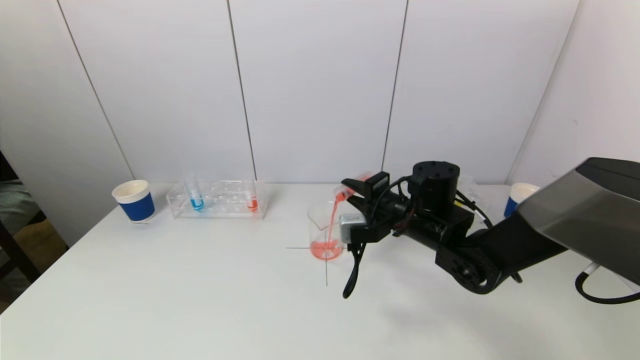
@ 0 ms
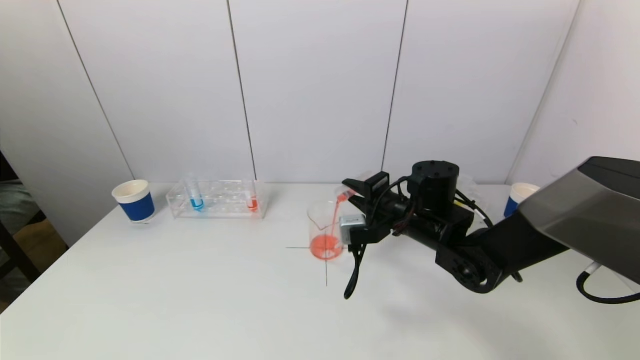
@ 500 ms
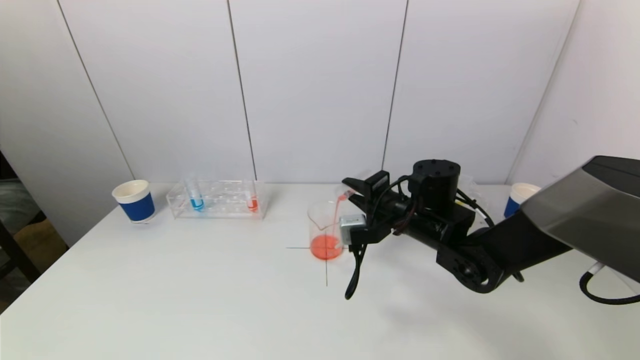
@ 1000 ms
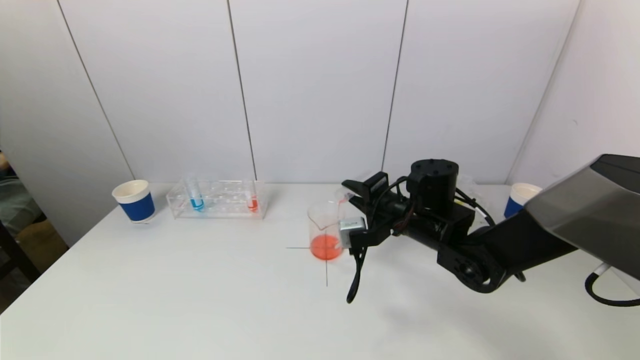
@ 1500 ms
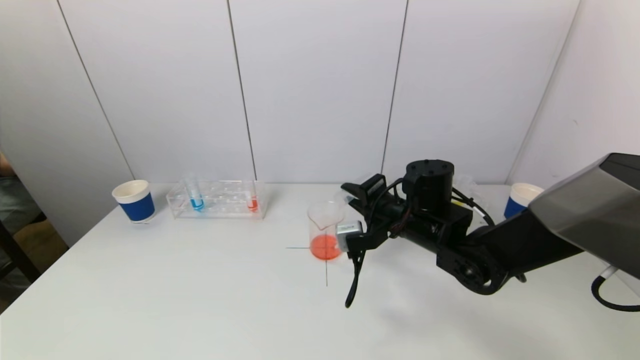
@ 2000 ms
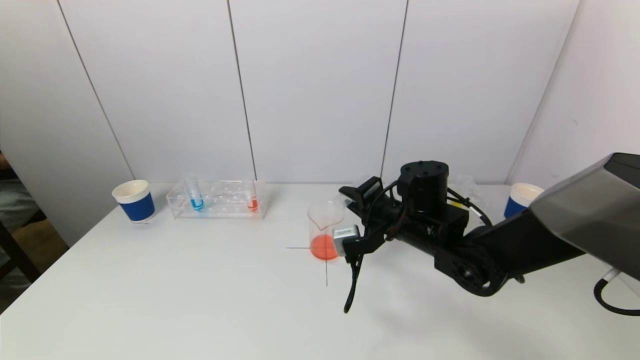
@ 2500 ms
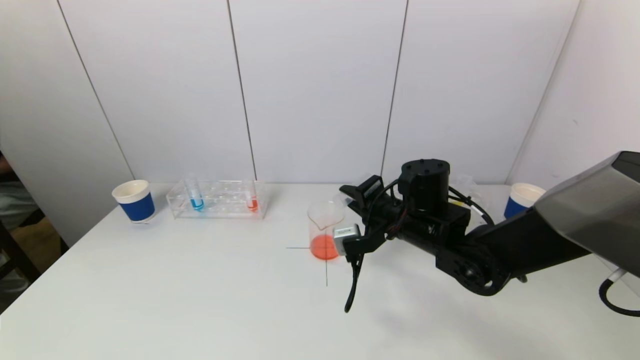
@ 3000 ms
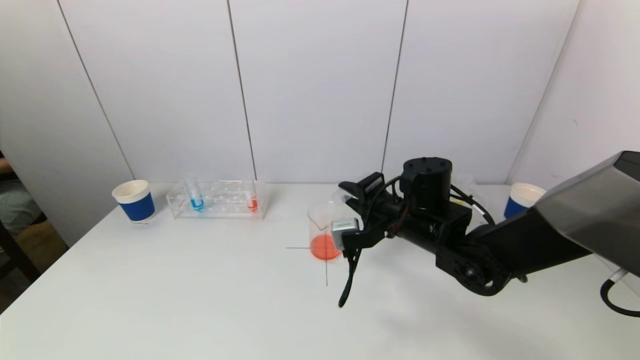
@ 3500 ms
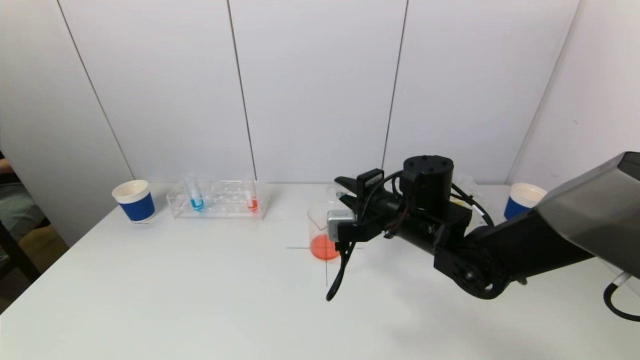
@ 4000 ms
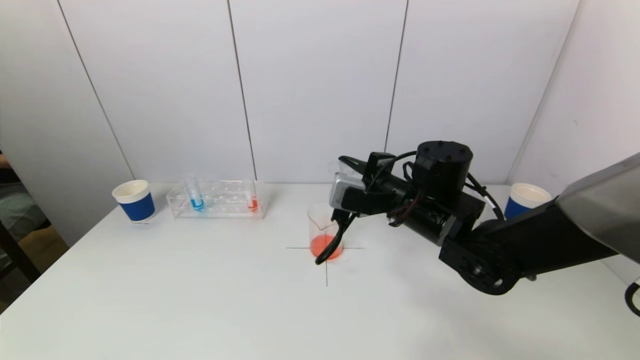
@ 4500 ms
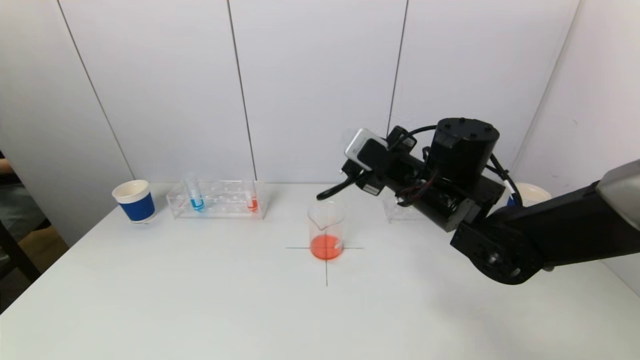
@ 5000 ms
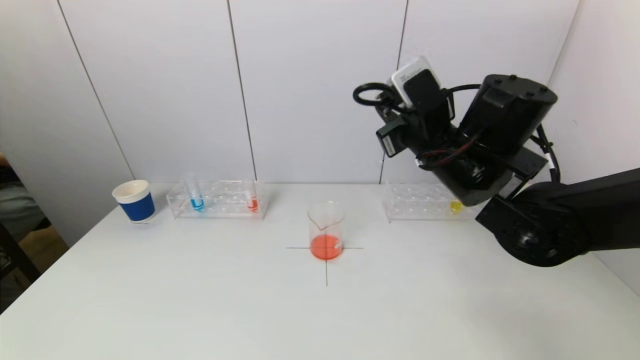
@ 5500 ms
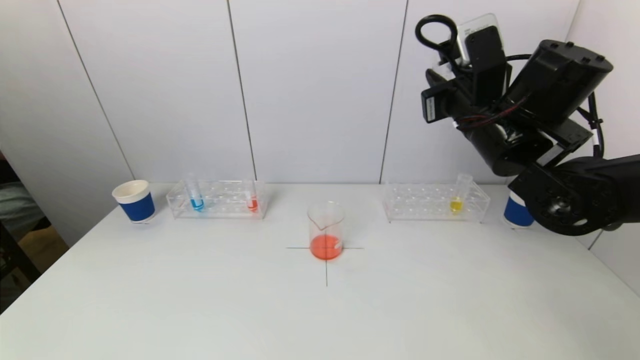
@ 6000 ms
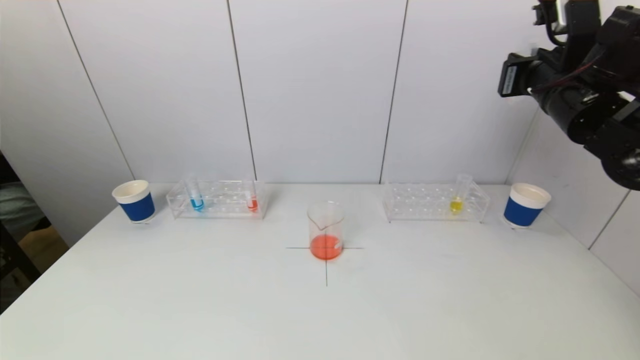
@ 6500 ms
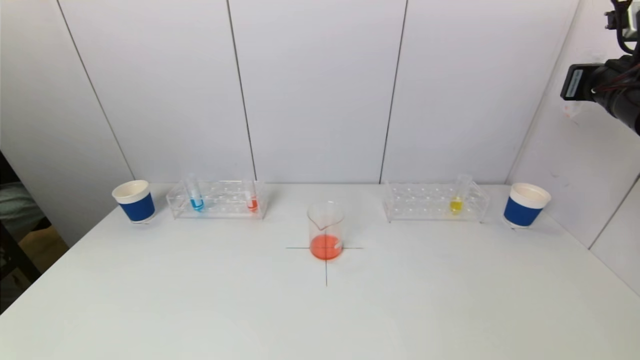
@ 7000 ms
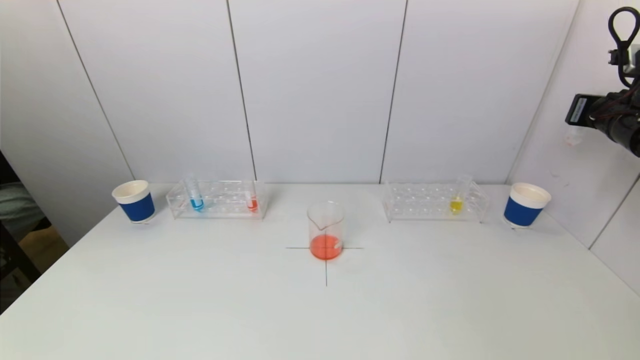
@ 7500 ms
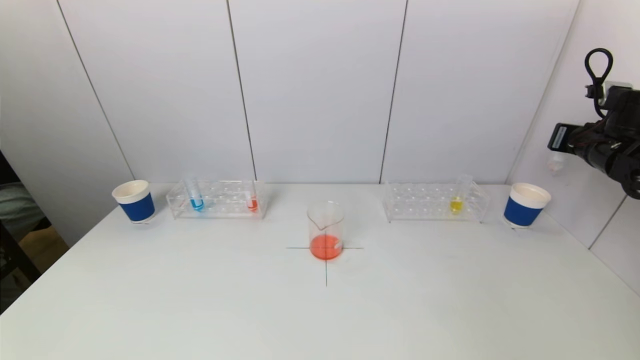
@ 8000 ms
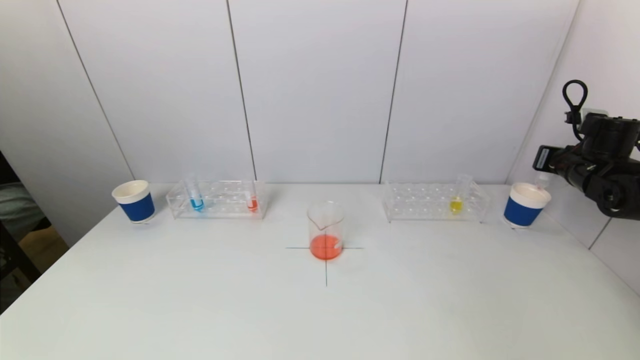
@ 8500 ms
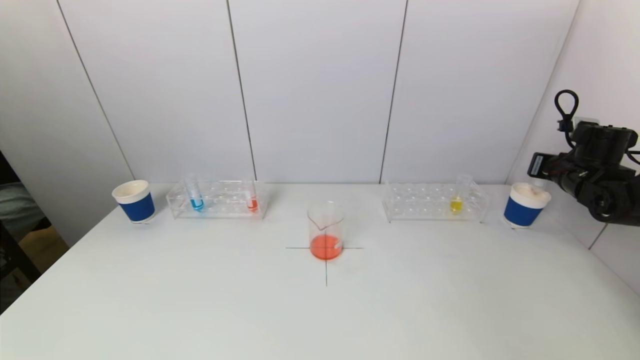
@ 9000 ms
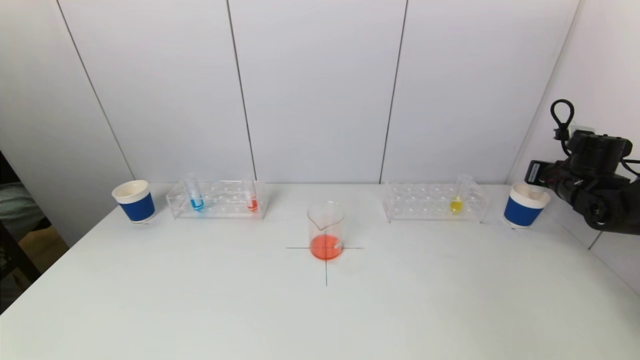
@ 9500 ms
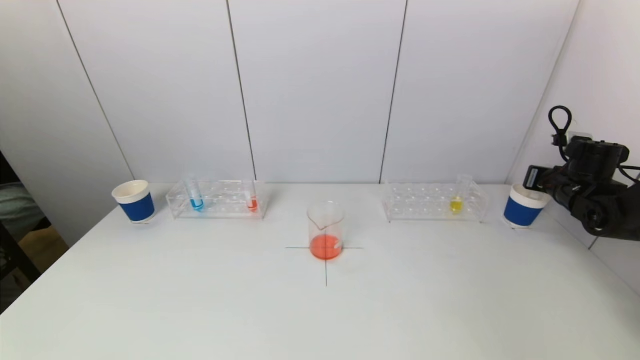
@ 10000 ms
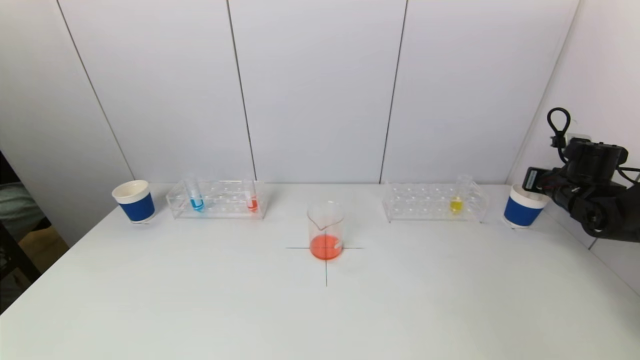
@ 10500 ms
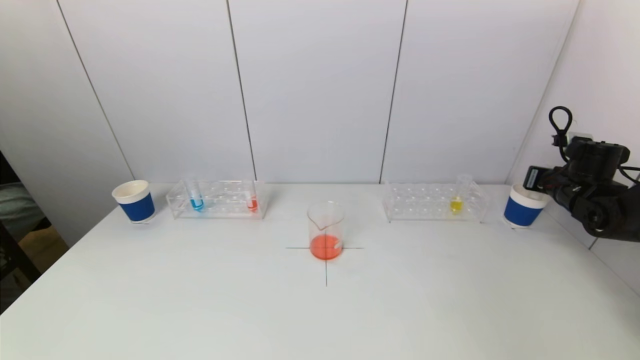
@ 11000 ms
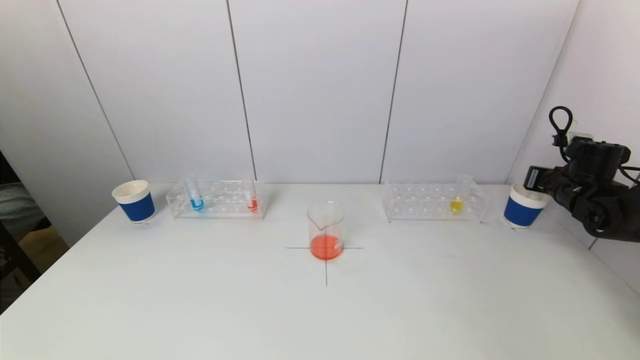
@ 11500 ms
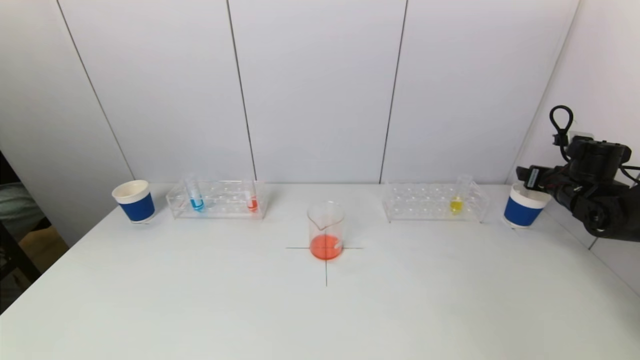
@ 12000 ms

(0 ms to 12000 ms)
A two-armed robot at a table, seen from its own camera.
Task of the whole recording: pick up a test tube with pigment on left test tube rack and a test tube with pigment on right test tube rack by grippers and pour them into the beaker.
Step, 0 ms - 3000 ms: Pour the red reagent into the graduated cylinder with the right gripper.
0 ms - 4000 ms: There are only small adjustments of the grippers.
4000 ms - 6000 ms: The right gripper heads upward and to the right, covering roughly 15 cm.
6000 ms - 8000 ms: The right gripper travels to the right by about 25 cm.
8000 ms - 10000 ms: The right gripper travels downward by some 10 cm.

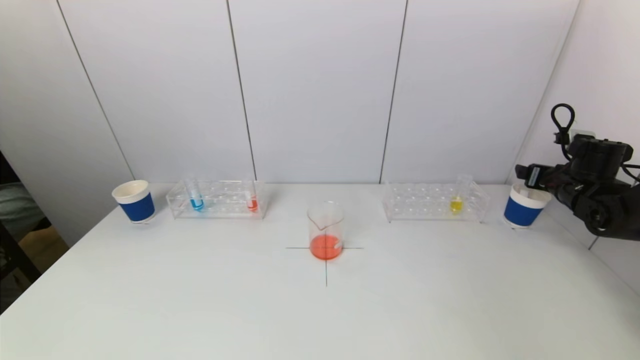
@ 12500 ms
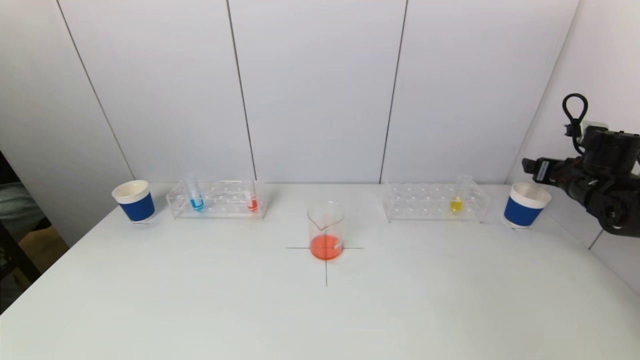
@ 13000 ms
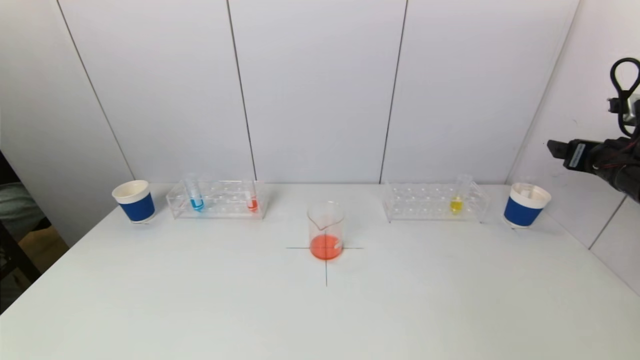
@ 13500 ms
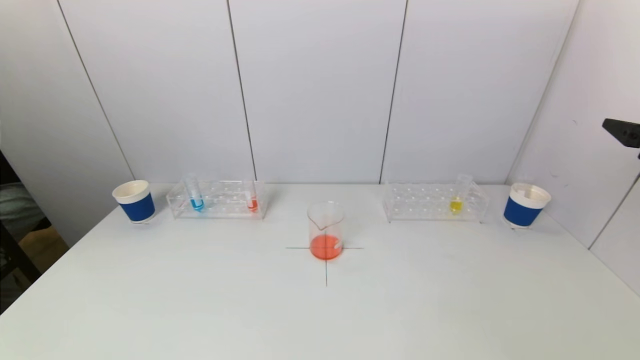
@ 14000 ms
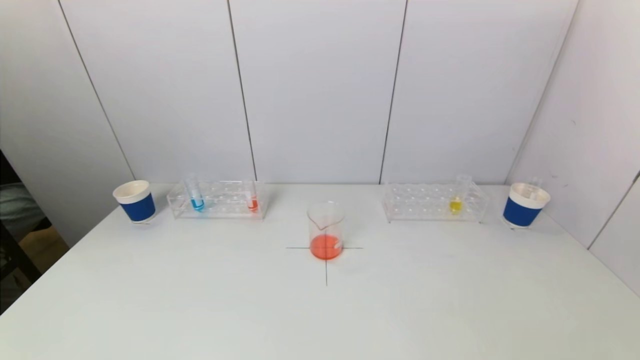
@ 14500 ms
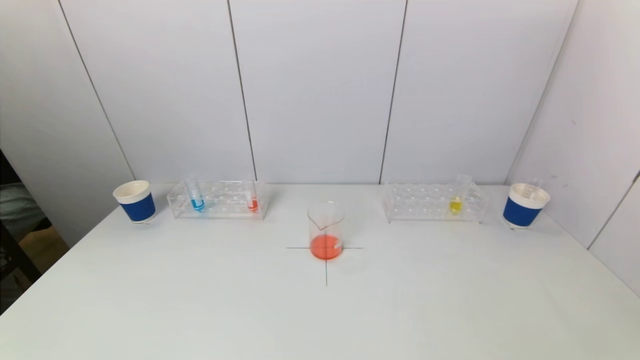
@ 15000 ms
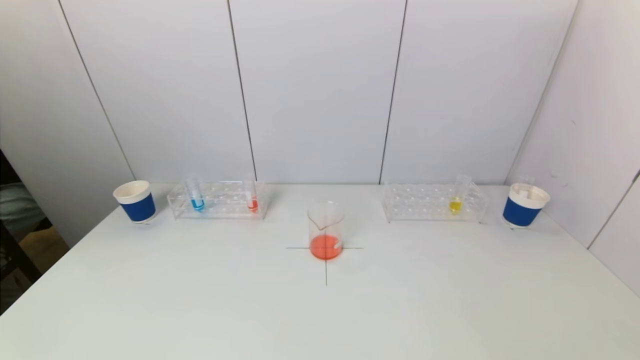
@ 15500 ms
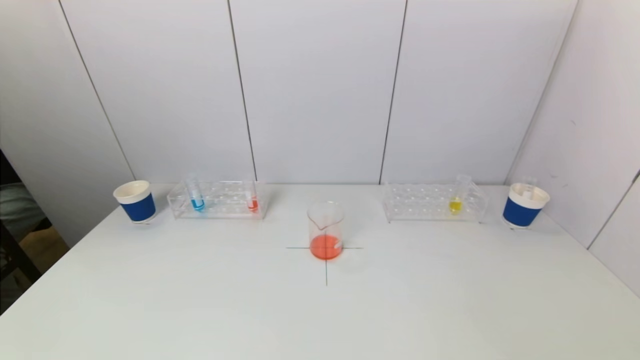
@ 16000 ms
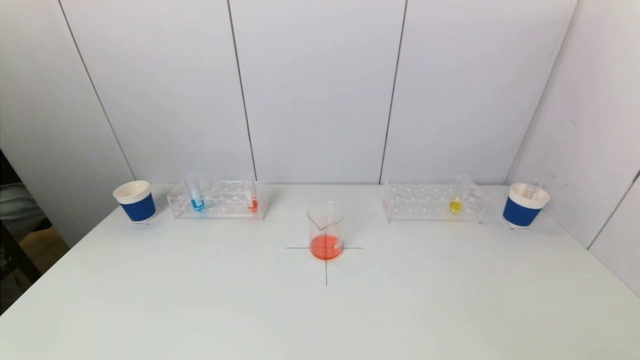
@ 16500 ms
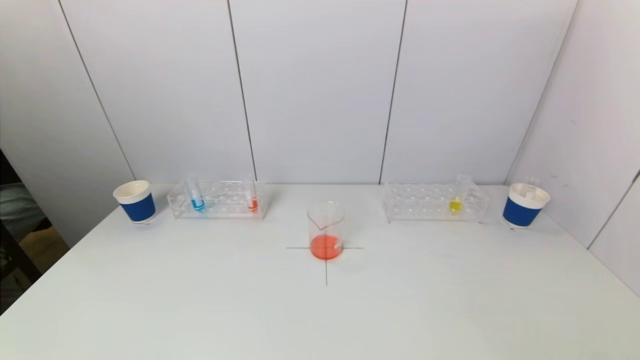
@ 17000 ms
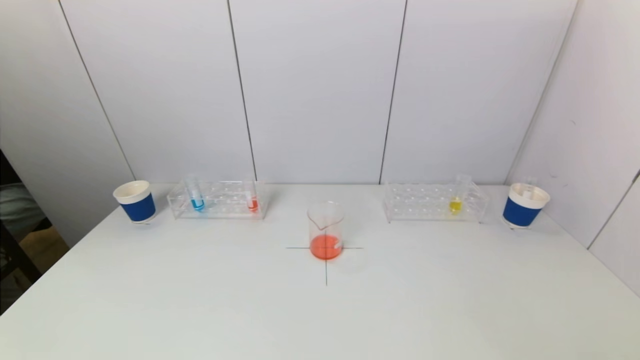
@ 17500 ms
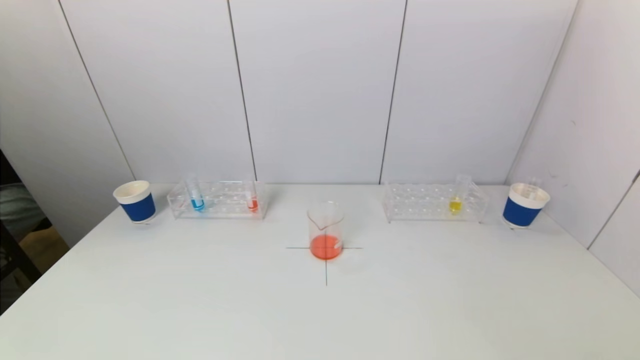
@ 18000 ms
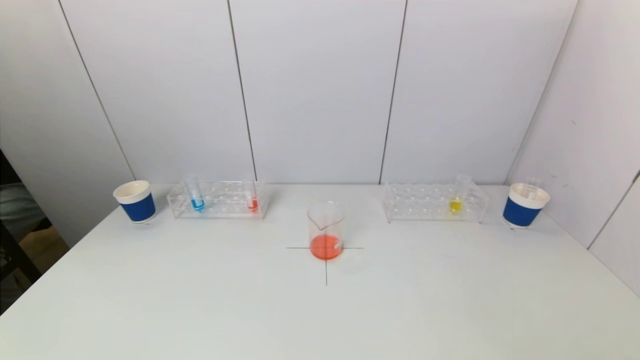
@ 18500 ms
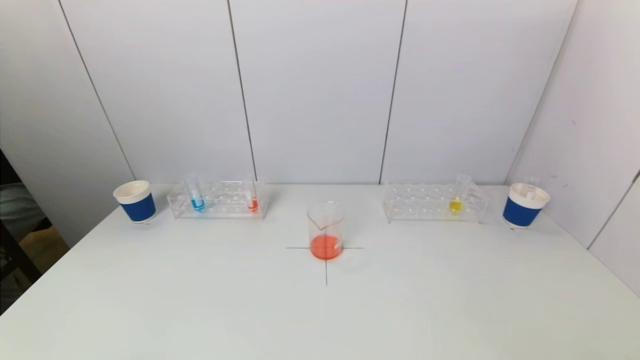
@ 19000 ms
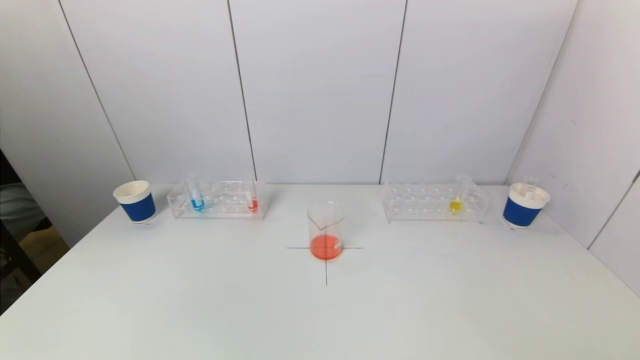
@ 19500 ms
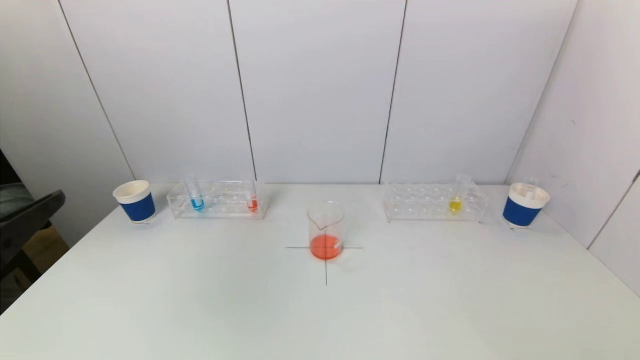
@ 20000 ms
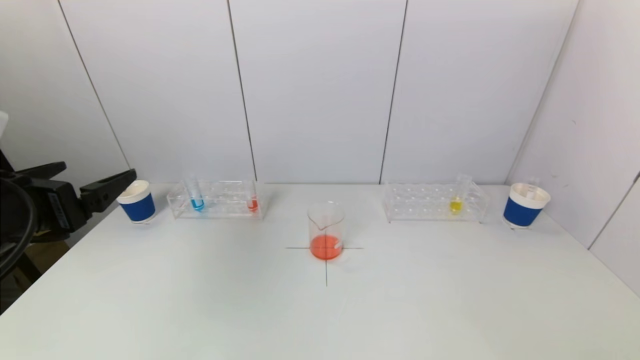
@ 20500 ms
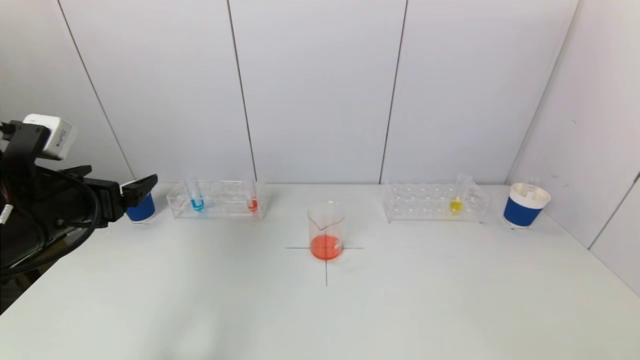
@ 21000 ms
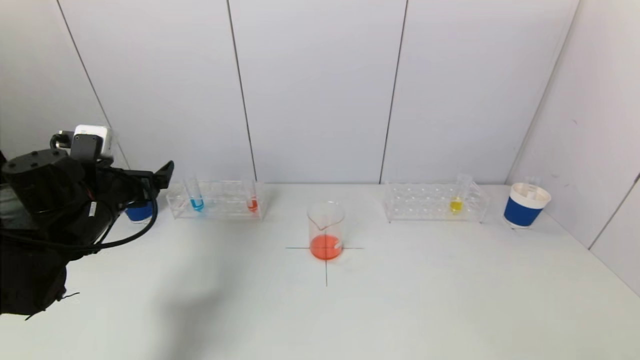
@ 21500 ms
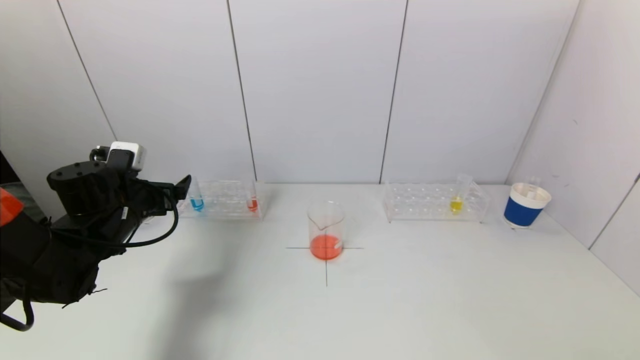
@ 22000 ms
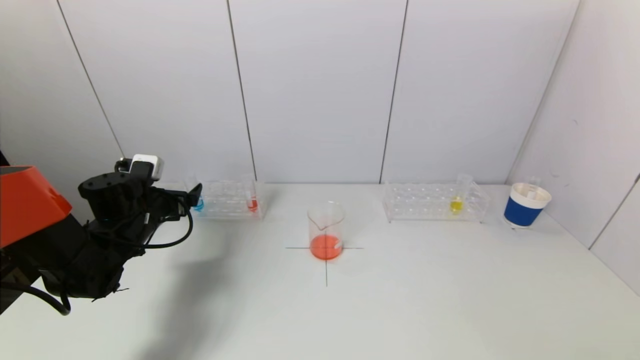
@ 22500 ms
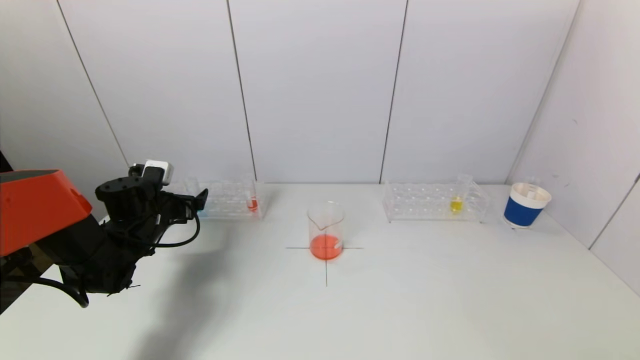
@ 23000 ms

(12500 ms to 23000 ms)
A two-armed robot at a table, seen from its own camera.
Task of the whole recording: pick up a test tube with pigment on left test tube rack and a test tube with pigment on right test tube rack by grippers and pour them into the beaker.
12500 ms - 14500 ms: The right gripper goes approximately 35 cm backward and upward.
19000 ms - 21000 ms: The left gripper is displaced forward by some 25 cm.
21000 ms - 23000 ms: The left gripper heads forward and downward, covering some 20 cm.
